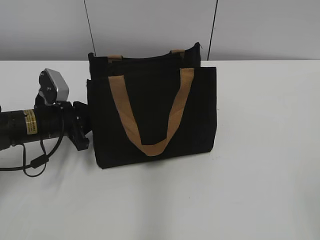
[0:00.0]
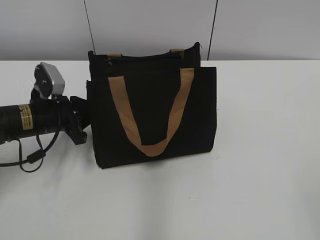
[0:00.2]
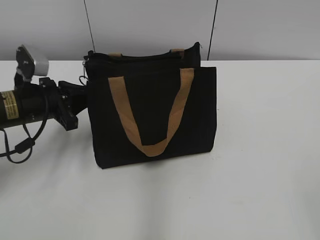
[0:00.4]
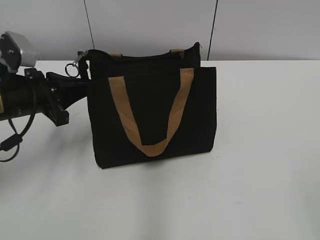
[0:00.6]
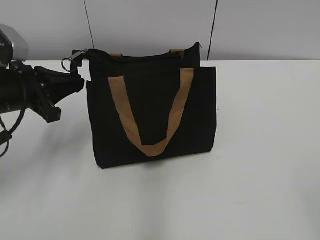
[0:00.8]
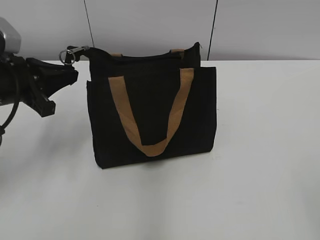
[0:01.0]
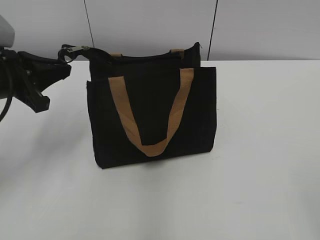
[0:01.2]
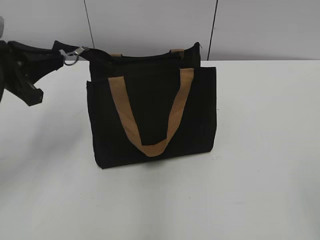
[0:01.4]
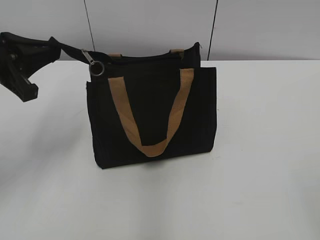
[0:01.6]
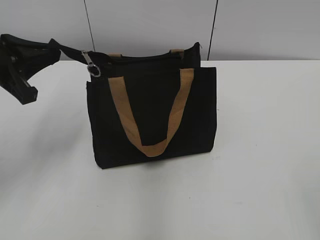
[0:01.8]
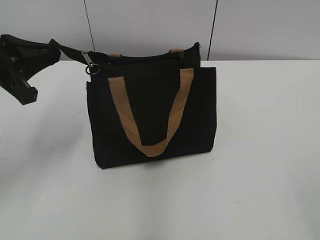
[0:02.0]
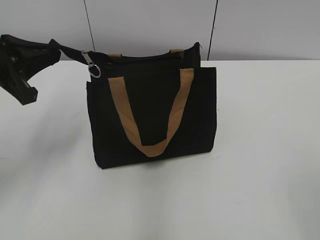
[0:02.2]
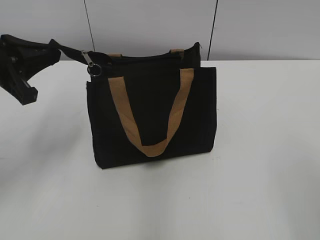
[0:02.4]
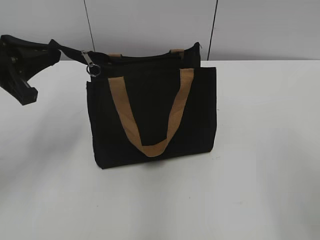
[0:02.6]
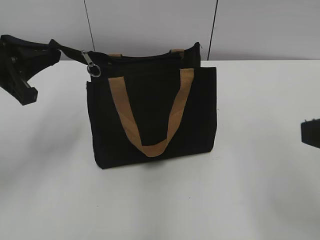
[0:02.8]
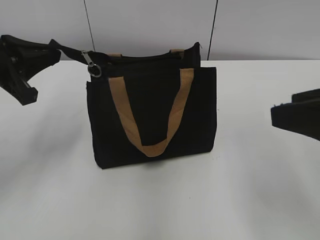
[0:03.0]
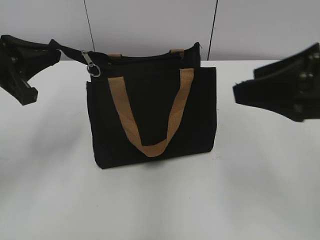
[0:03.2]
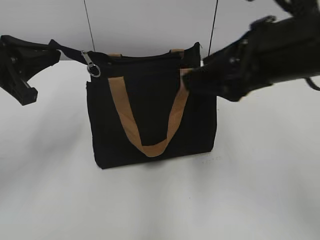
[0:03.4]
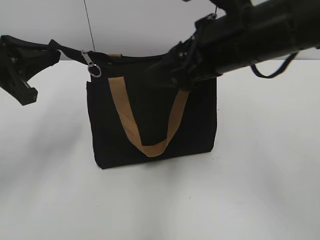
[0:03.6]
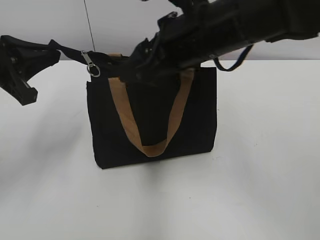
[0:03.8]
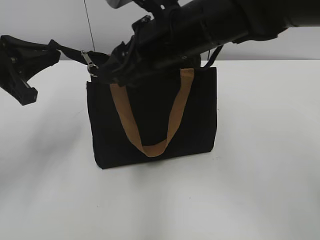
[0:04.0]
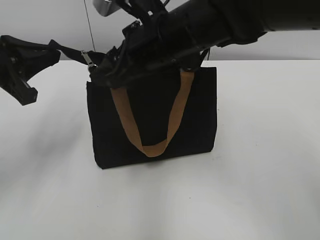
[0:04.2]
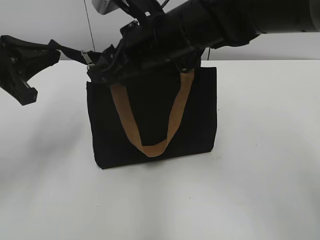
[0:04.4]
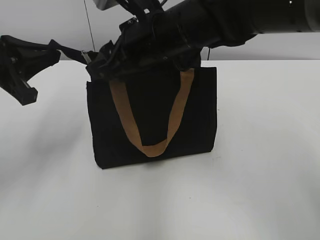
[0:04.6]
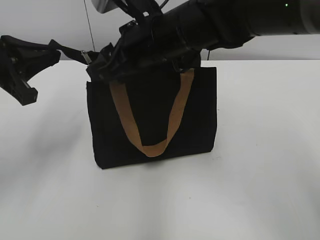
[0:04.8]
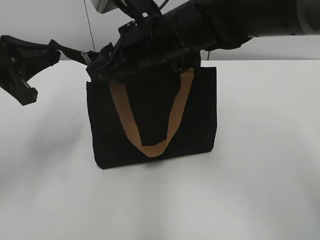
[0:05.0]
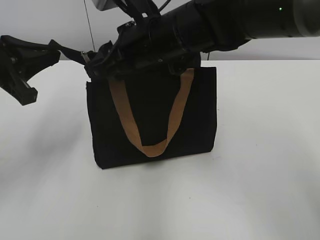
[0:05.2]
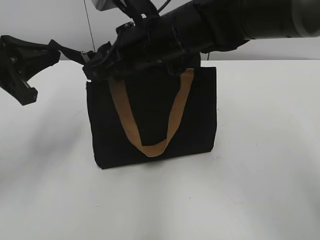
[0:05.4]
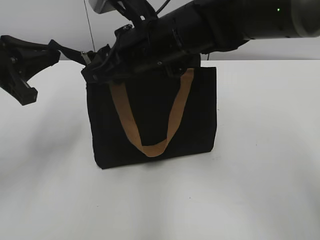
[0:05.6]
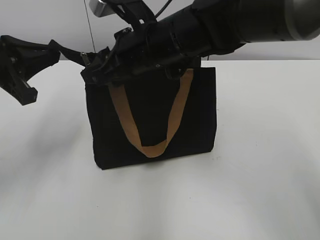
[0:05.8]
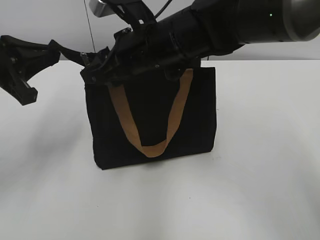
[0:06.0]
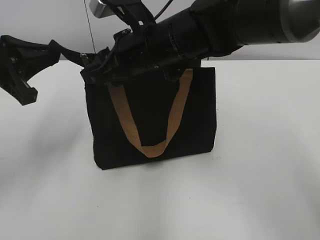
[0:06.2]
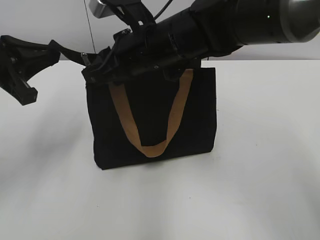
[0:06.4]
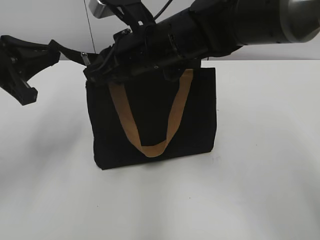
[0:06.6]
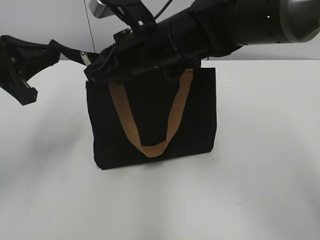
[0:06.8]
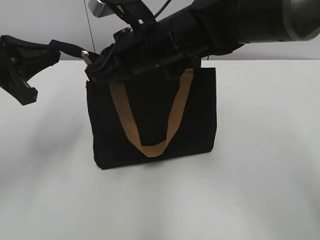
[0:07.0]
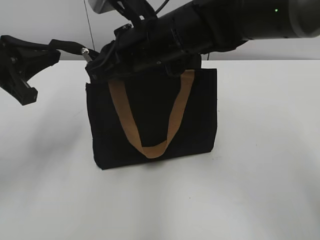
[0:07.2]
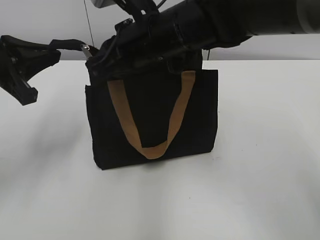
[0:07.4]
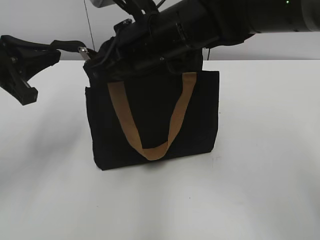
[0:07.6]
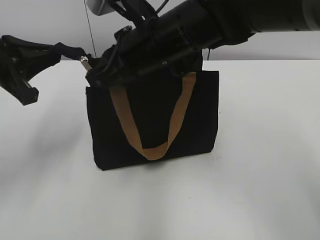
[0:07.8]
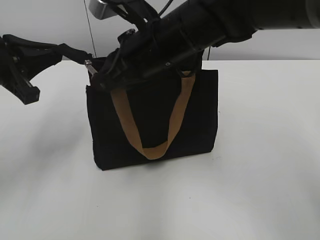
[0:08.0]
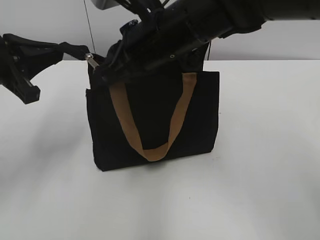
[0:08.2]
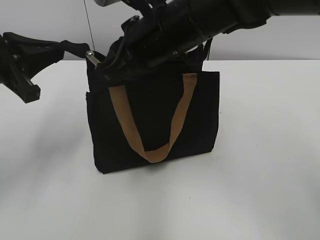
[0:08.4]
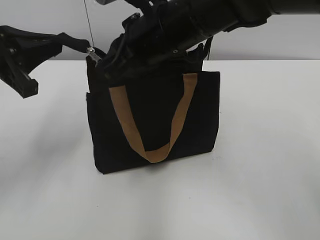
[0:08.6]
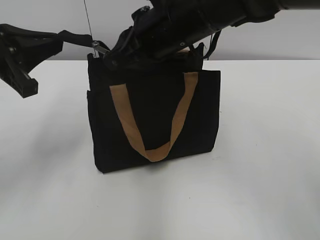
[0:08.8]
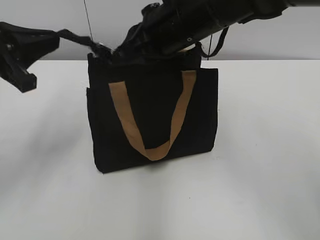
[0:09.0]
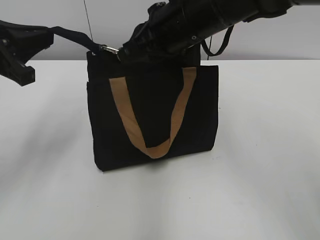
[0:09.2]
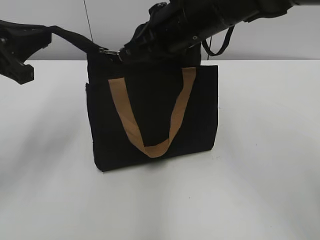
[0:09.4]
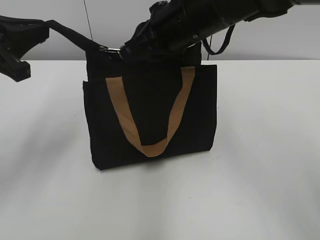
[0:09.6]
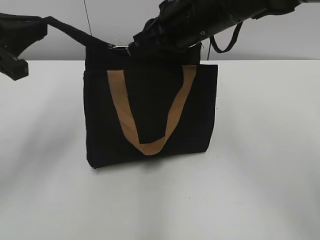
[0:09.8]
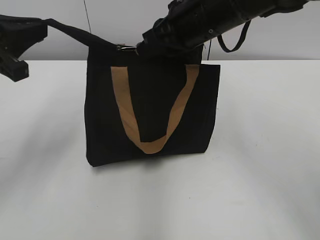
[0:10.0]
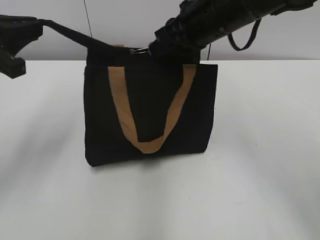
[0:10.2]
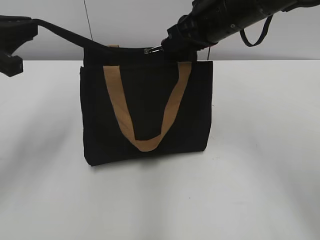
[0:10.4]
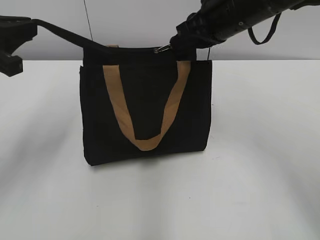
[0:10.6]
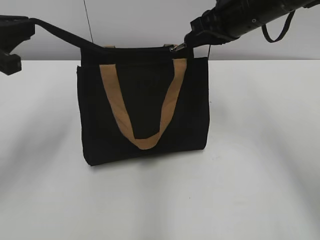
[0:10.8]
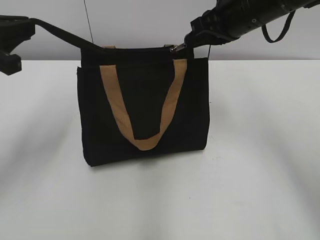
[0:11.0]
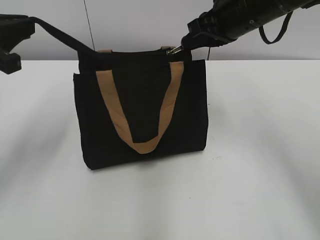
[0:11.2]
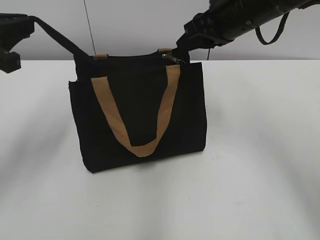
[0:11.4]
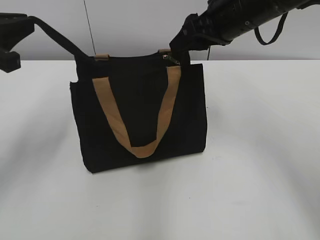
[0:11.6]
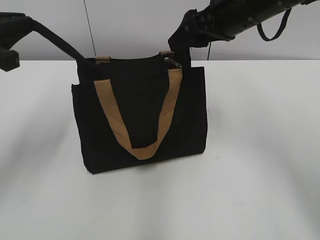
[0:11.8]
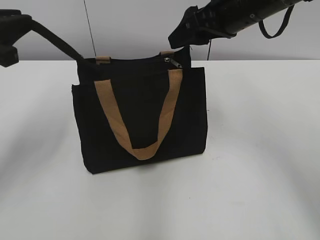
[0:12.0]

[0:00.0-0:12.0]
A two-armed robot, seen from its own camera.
Step, 0:00.0 to 0:11.2: Zip up the bag with your right hand.
0:00.0 to 0:01.6: The left gripper goes roughly 15 cm upward.
0:01.6 to 0:03.0: The right gripper heads forward, covering some 15 cm.
0:03.0 to 0:04.4: The right gripper travels to the left and forward by roughly 30 cm.
0:04.4 to 0:06.0: The grippers make only small movements.
0:06.0 to 0:07.6: The right gripper closes up.
0:07.6 to 0:09.0: There are only small adjustments of the grippers.
0:09.0 to 0:10.4: The right gripper is displaced to the right by some 5 cm.
0:10.4 to 0:12.0: The right gripper opens its fingers.

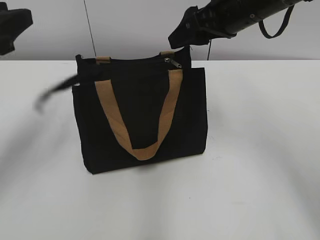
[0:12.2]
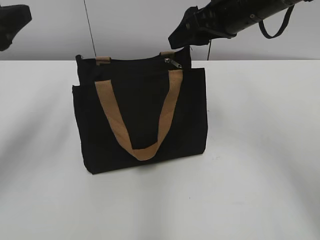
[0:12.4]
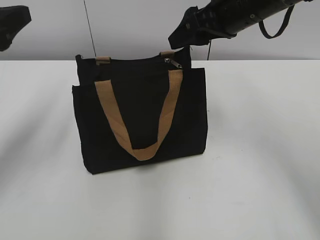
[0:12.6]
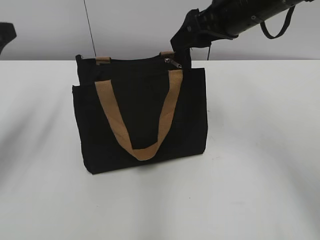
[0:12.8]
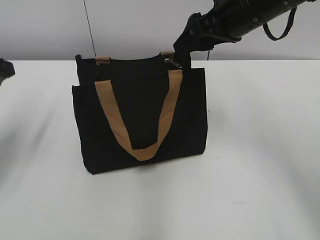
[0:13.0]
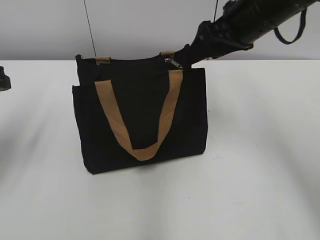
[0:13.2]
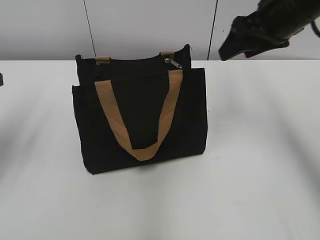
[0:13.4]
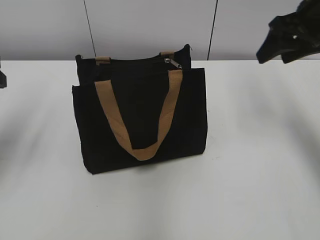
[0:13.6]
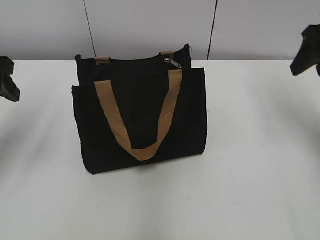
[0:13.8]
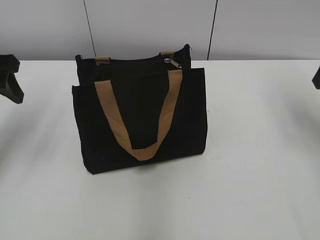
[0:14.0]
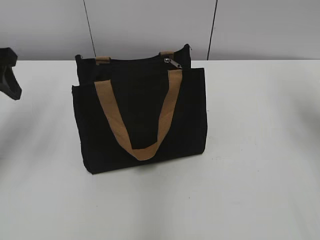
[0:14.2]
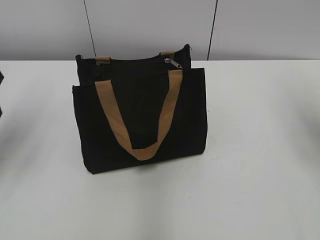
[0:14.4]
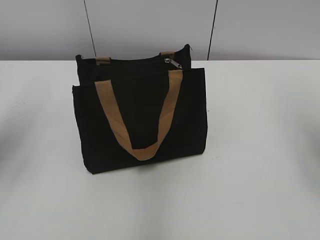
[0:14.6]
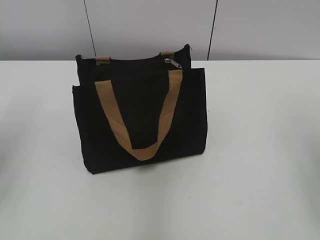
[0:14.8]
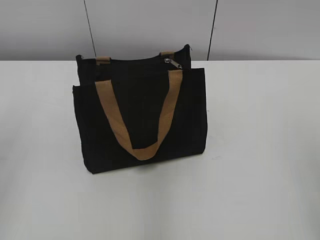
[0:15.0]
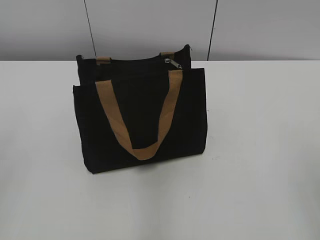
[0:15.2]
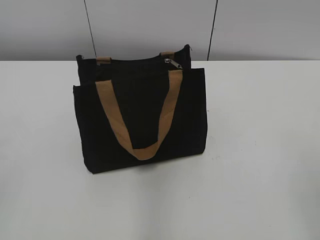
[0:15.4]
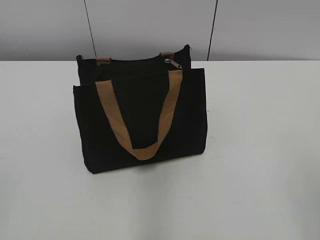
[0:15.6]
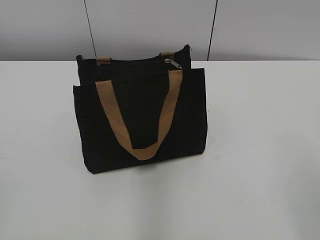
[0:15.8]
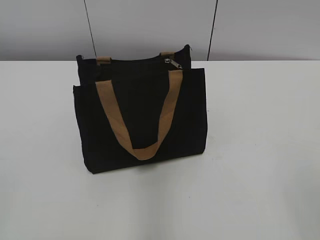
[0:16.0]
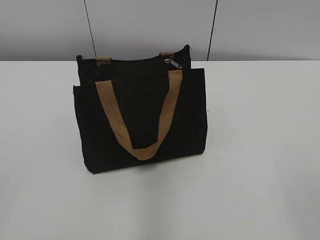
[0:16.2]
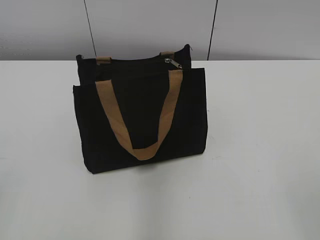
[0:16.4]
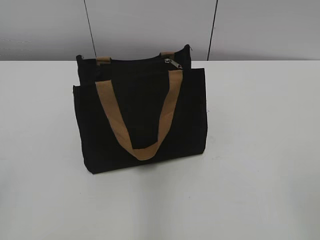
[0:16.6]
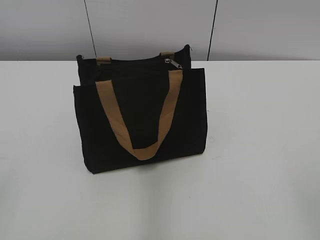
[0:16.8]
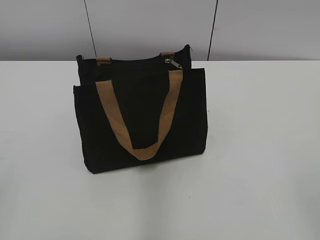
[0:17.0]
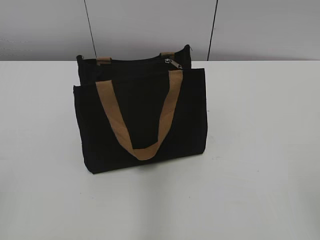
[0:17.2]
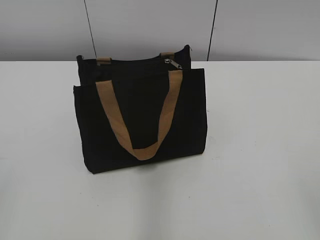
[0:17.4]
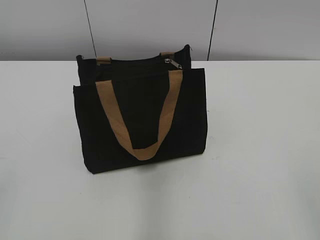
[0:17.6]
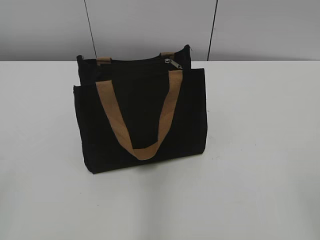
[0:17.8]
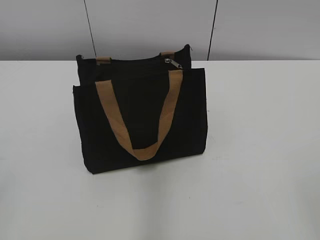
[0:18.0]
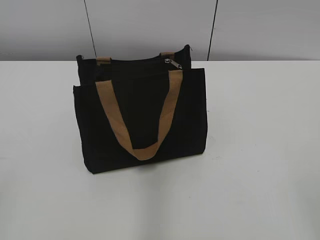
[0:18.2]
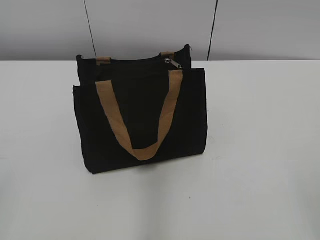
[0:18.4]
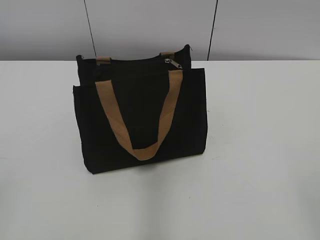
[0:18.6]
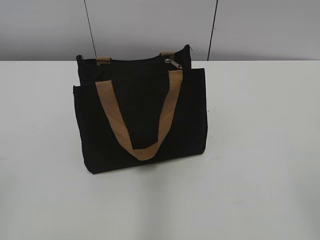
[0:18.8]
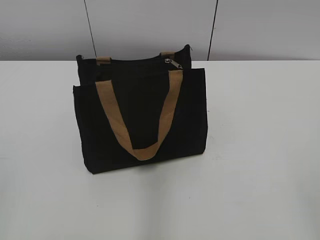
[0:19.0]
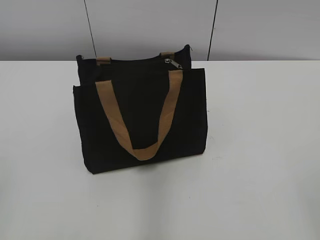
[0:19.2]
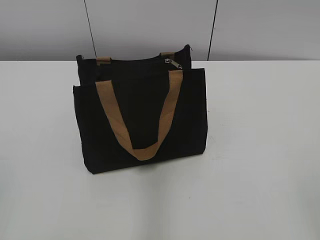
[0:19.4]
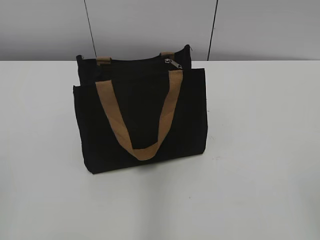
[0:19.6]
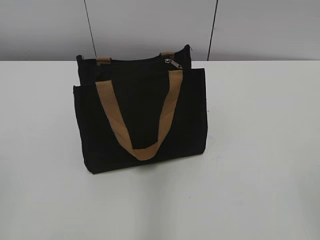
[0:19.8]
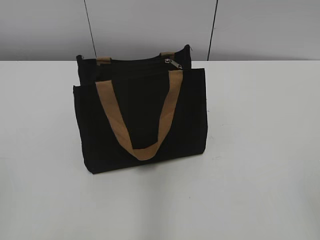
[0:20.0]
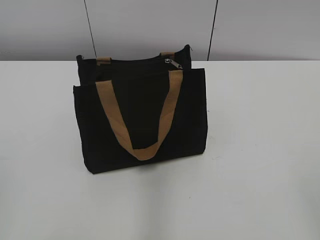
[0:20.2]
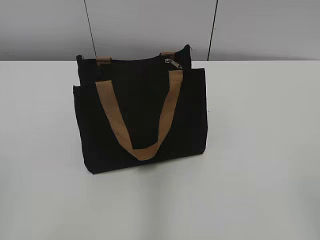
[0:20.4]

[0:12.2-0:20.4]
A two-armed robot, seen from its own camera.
0:12.2 to 0:13.8: The right gripper travels to the right by some 15 cm.
0:13.8 to 0:15.4: The grippers both shift backward by approximately 25 cm.
0:17.2 to 0:18.8: Both grippers stay put.
